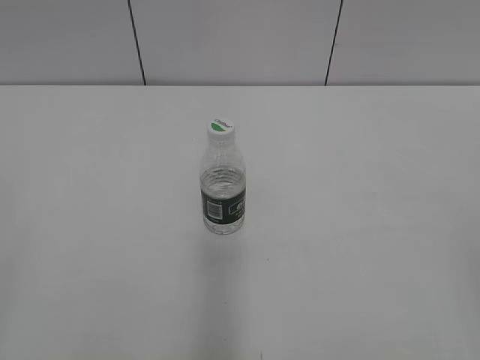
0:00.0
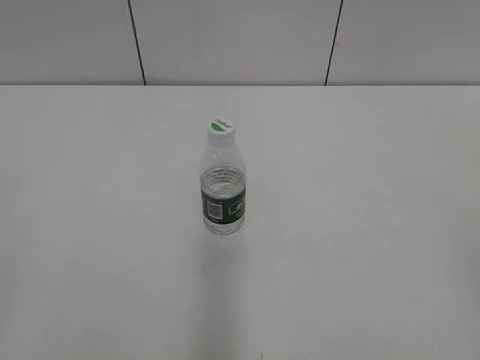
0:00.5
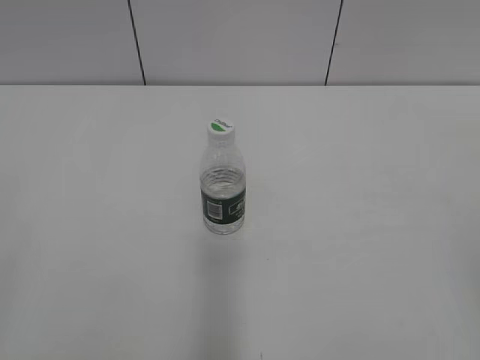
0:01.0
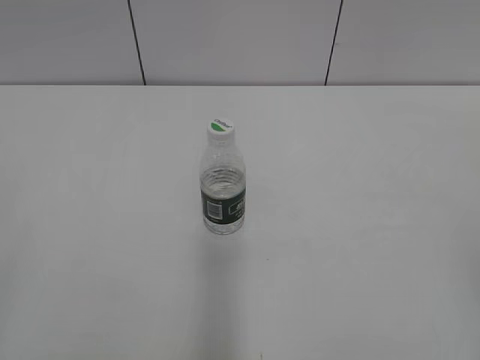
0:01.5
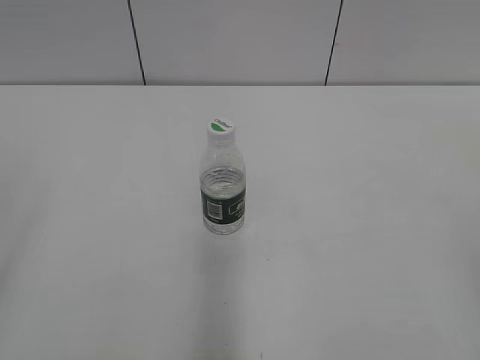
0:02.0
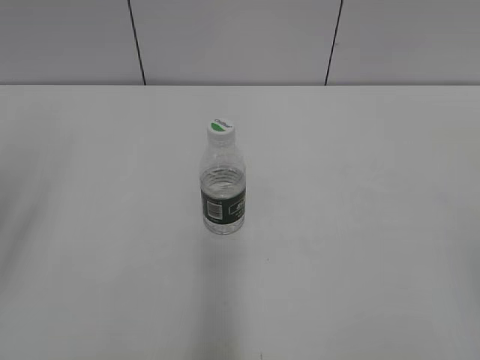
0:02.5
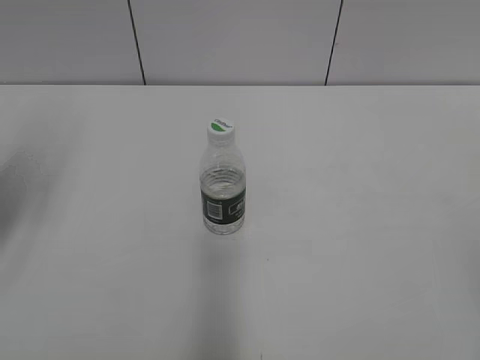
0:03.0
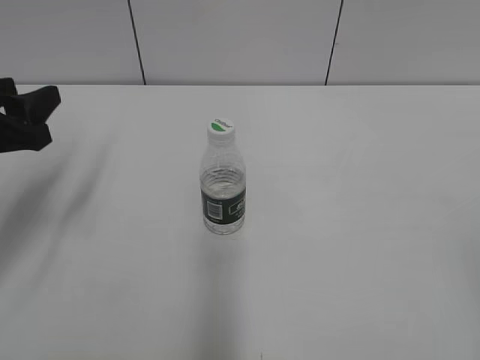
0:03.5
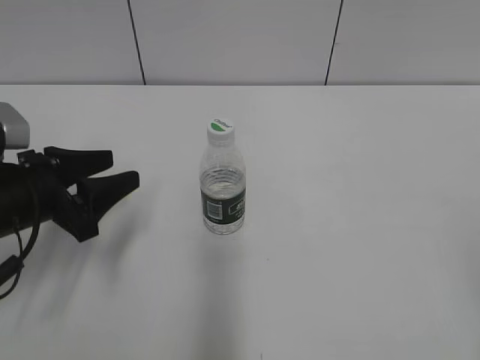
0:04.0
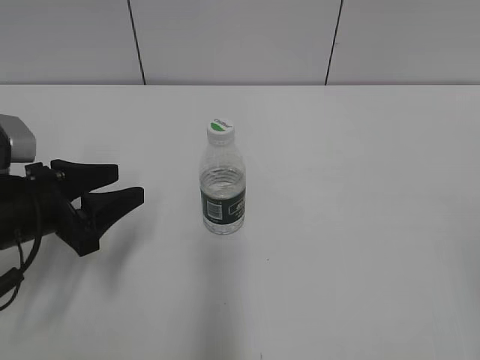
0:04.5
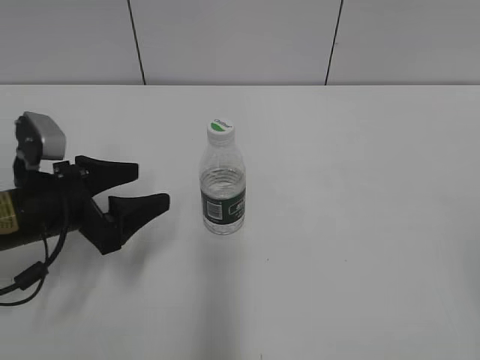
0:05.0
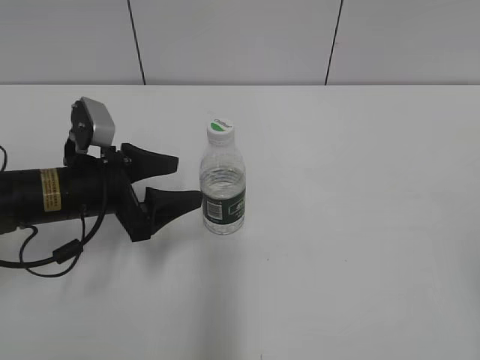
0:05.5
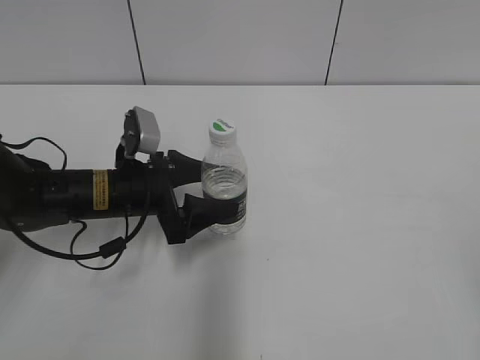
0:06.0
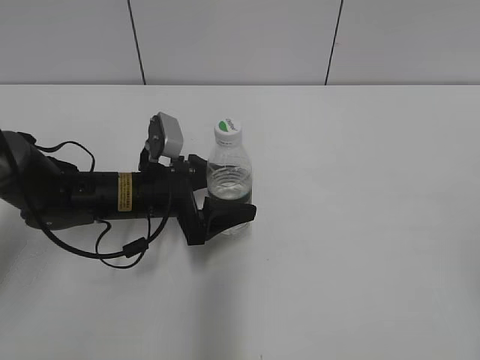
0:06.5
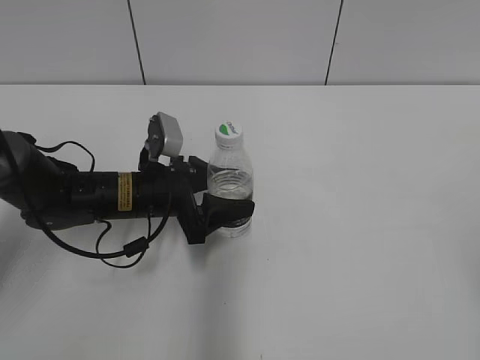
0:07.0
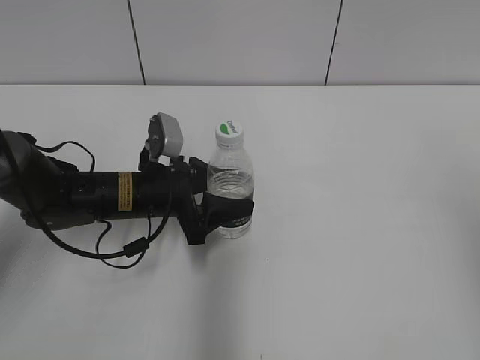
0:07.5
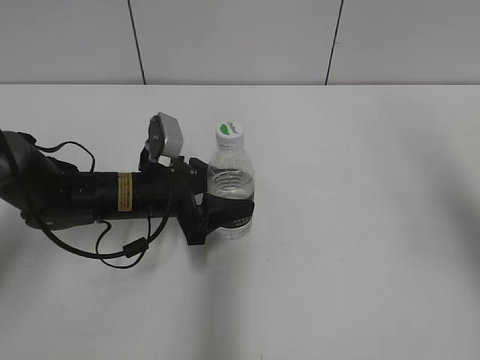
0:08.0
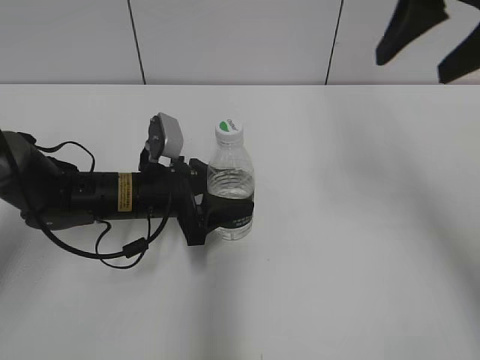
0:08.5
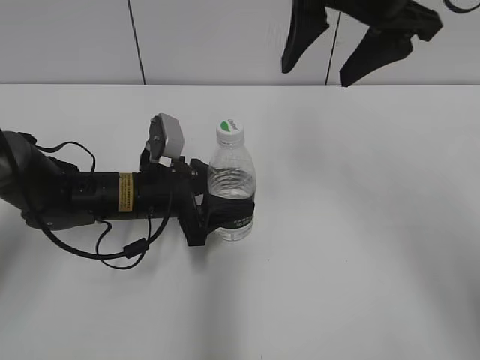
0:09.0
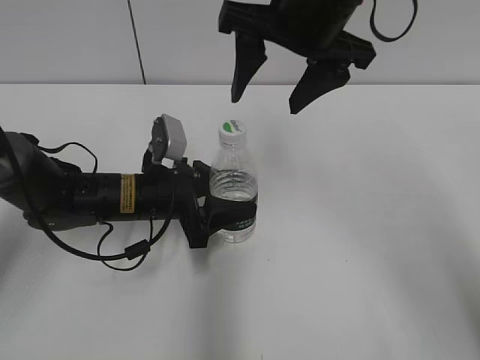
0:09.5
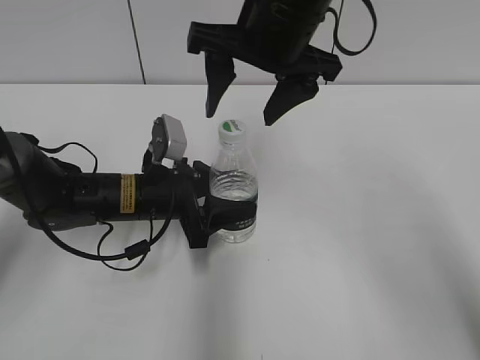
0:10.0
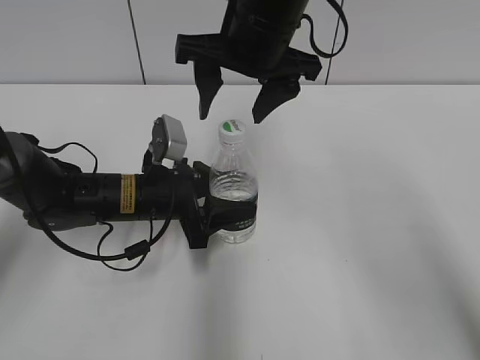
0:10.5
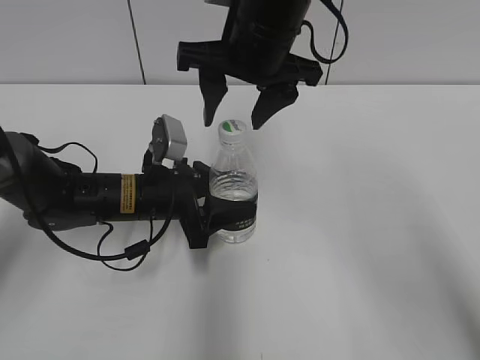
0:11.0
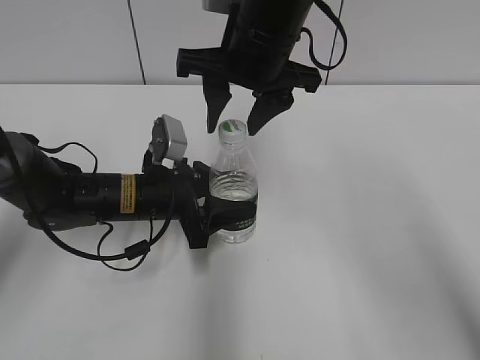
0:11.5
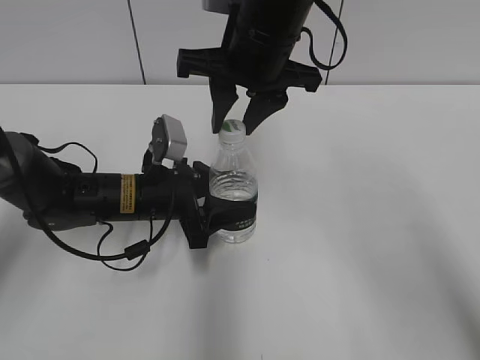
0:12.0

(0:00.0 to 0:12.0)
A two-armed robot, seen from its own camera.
Step, 0:00.0 - 0:08.0: Grasp the bottle and move it to the center of the table with the left gripper.
0:02.0 - 0:04.0: The left gripper shifts approximately 30 cm forward and downward.
0:04.0 - 0:06.0: The left gripper shifts some 10 cm to the right and forward, and opens.
0:06.0 - 0:08.0: The right gripper heads forward and upward, covering about 20 cm. Meanwhile the left gripper closes up.
0:08.0 - 0:10.0: The right gripper is displaced to the left and forward by some 25 cm.
0:10.0 - 0:12.0: The right gripper closes.

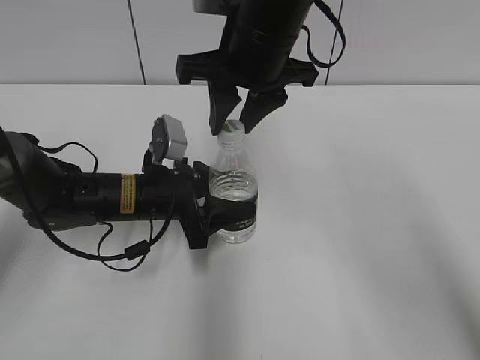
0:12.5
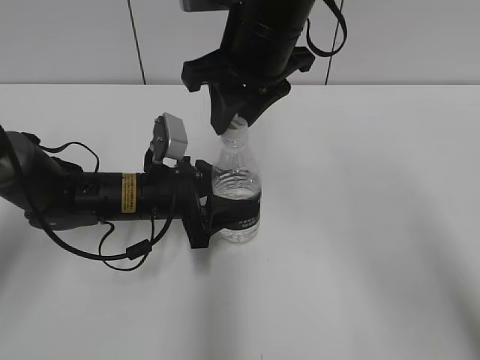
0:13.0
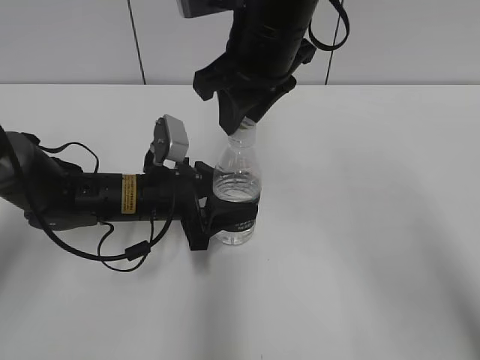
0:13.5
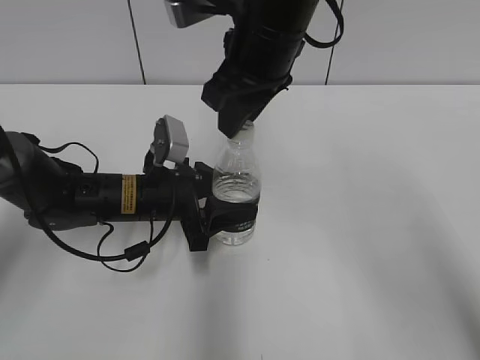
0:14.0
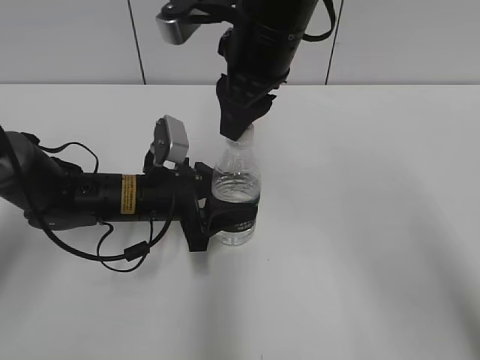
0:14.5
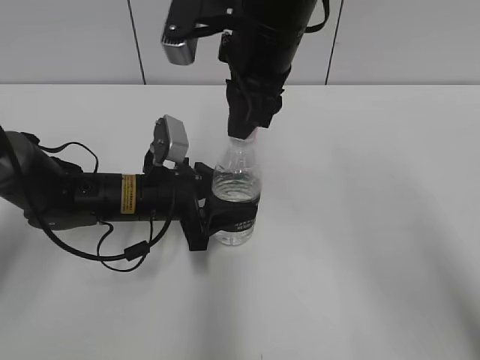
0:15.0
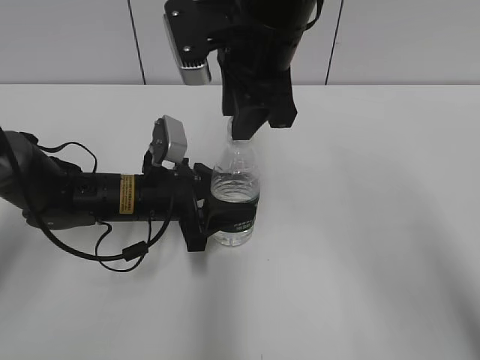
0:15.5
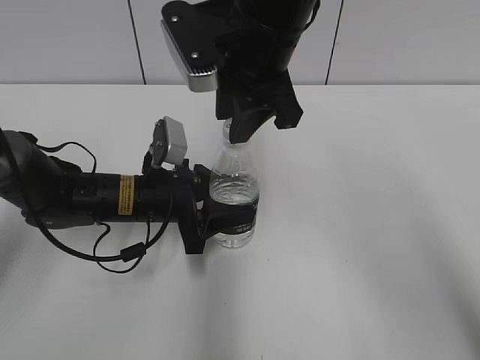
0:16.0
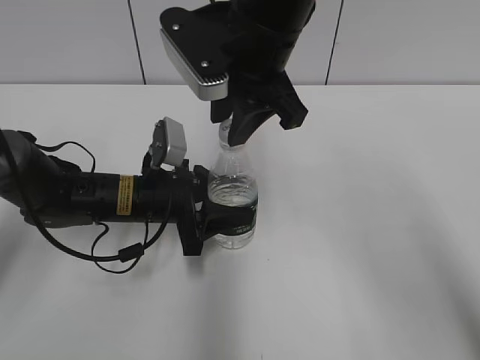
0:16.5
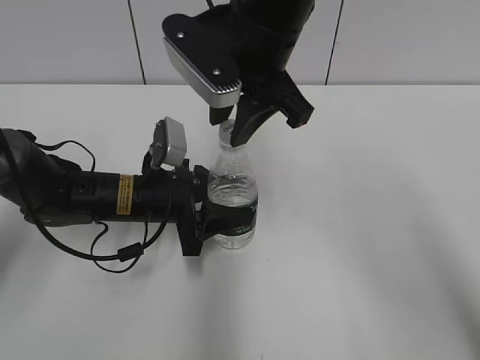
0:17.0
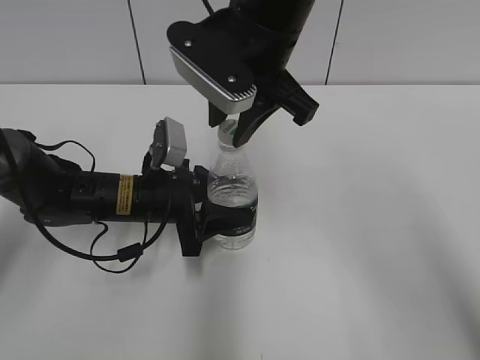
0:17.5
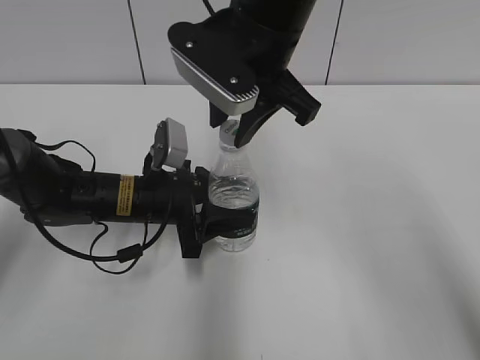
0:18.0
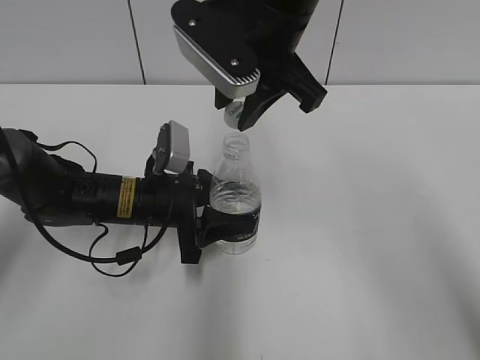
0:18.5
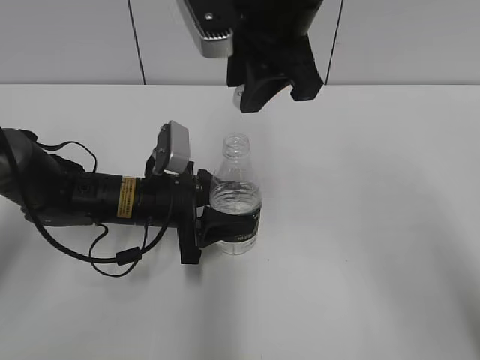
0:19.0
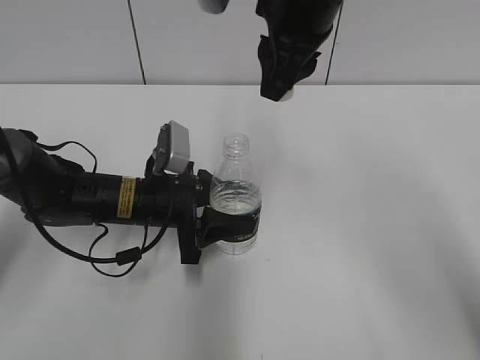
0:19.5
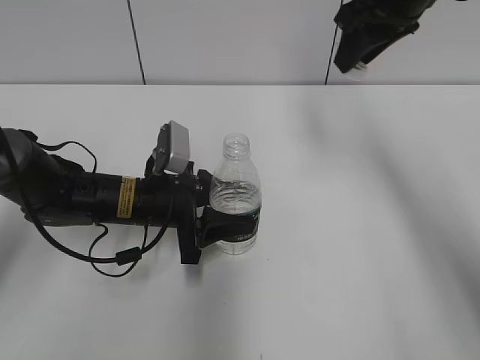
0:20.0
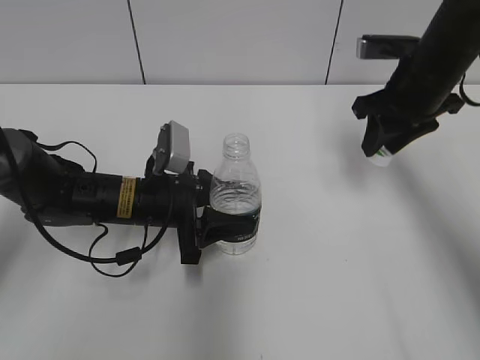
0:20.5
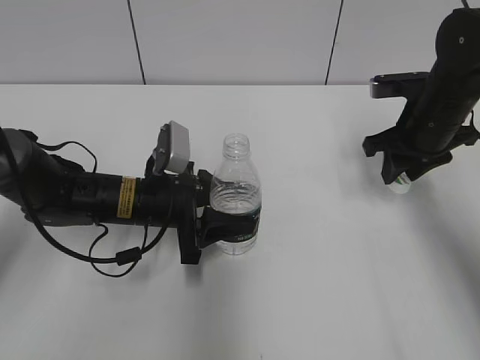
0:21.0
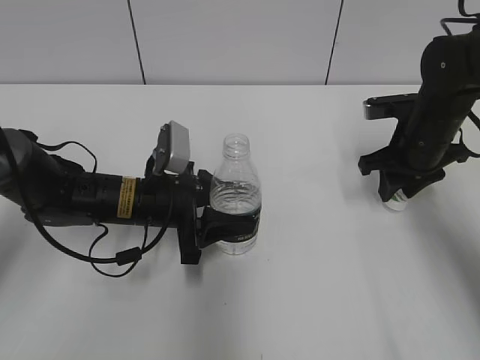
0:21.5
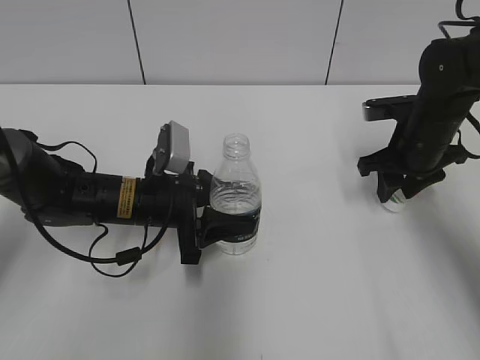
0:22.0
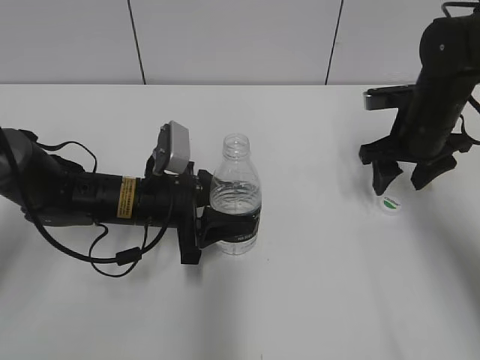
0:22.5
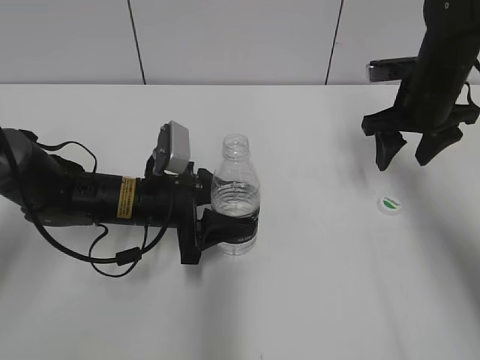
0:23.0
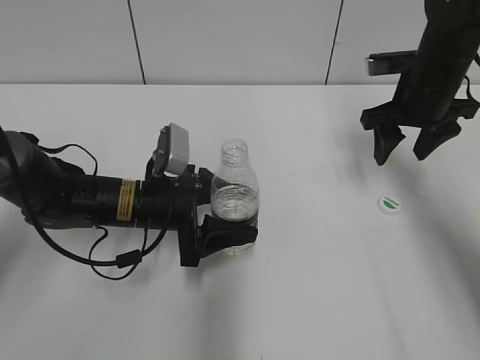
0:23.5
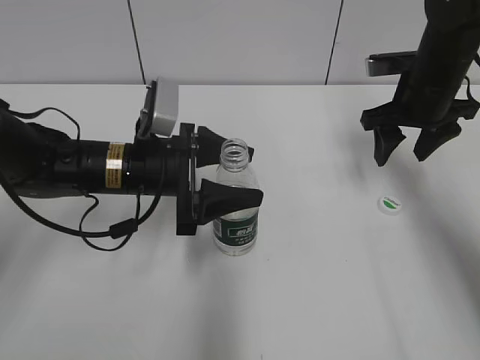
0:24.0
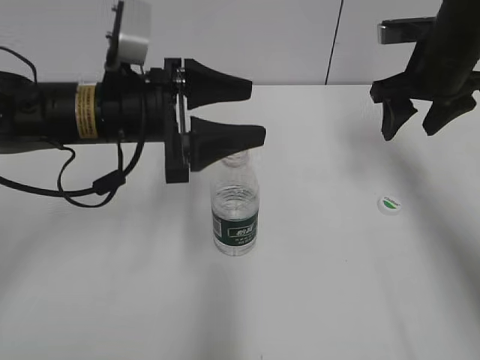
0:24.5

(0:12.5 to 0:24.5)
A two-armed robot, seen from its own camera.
Step, 0:12.5 - 0:18.5: Unscrew the bottle cap with the right gripper while holding the bottle with the left gripper.
Step, 0:19.0 - 0:22.0: Place the bottle cap on the table with the right gripper.
Step, 0:22.5 - 0:24.0: Place the bottle on the table with the left gripper.
0:16.5 - 0:18.5: The grippers stay close to where they were, moving slightly.
0:18.5 - 0:20.5: The right gripper heads to the right and downward, covering some 20 cm.
0:20.5 - 0:22.5: The right gripper travels downward by about 5 cm, and opens.
0:22.5 - 0:24.5: The right gripper moves upward, about 10 cm. The left gripper heads upward, covering approximately 15 cm, and opens up.

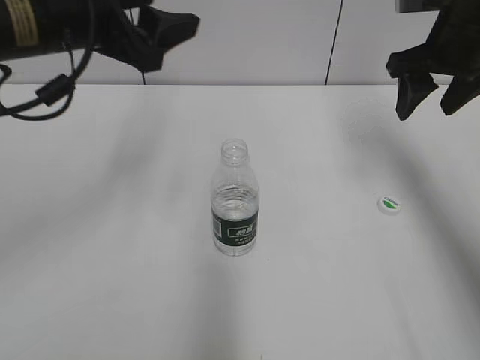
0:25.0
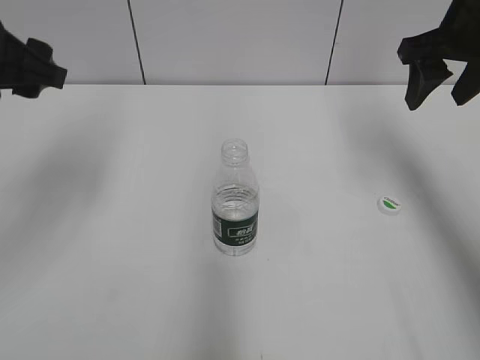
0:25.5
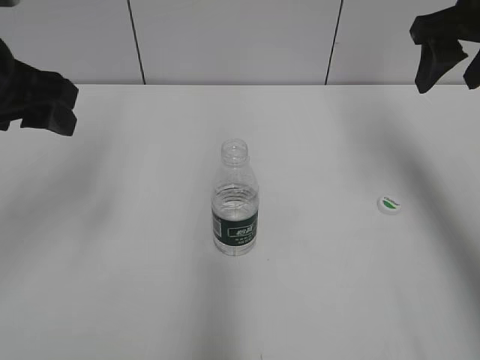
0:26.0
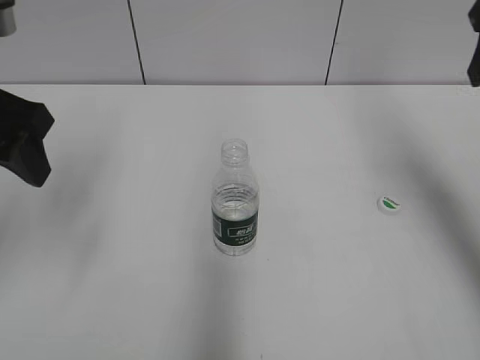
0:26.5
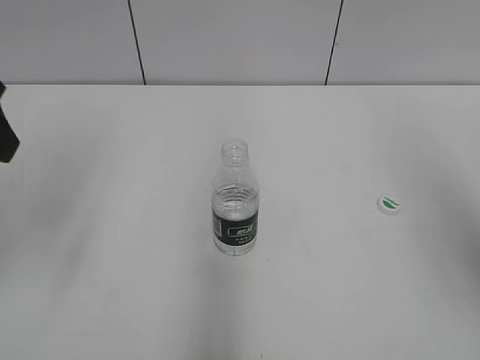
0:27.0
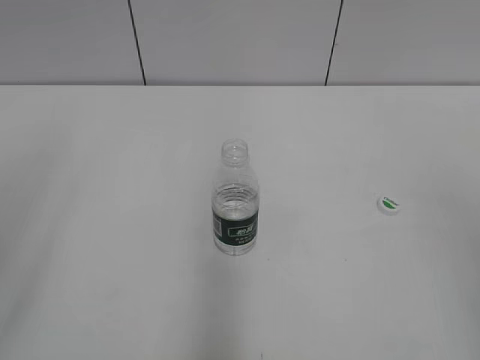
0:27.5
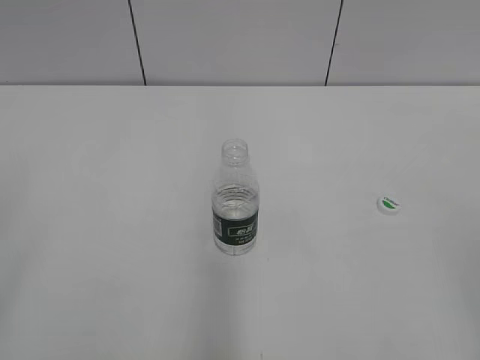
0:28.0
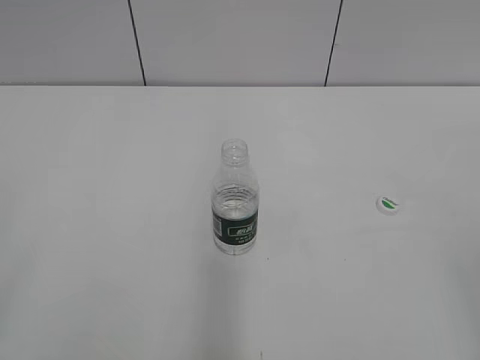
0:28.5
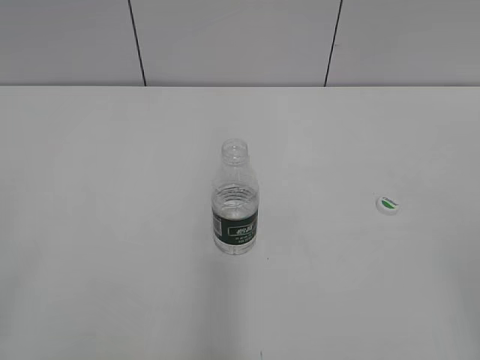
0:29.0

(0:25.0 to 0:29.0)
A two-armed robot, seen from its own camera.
0:25.0 - 0:27.0: The left gripper goes approximately 10 cm backward and to the left; the right gripper goes some 25 cm backward and upward.
0:27.0 - 0:29.0: The right gripper moves backward and downward, roughly 20 cm. The left gripper heads backward, covering about 20 cm, and closes.
